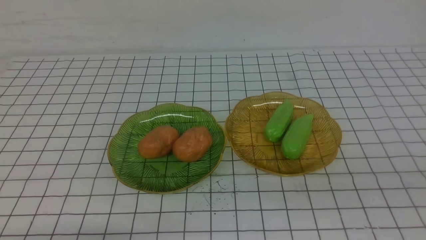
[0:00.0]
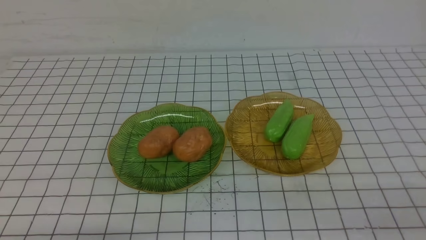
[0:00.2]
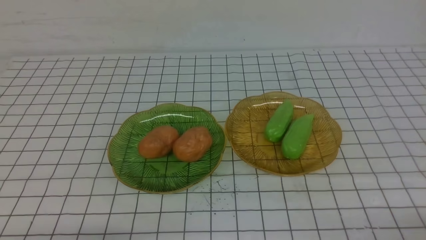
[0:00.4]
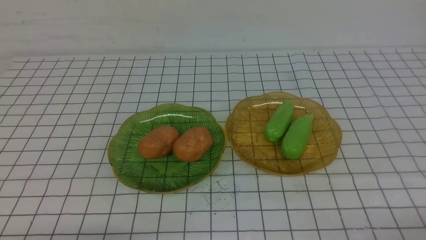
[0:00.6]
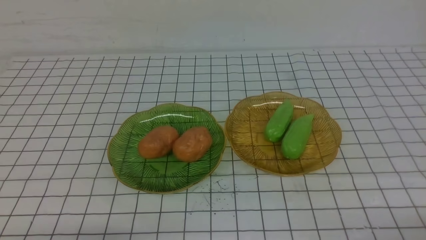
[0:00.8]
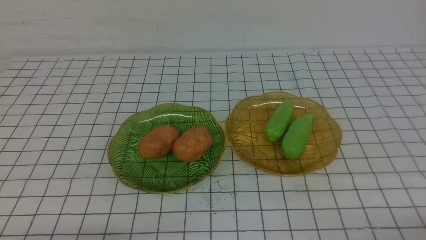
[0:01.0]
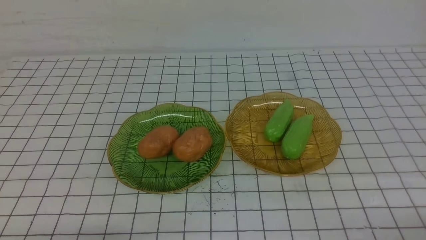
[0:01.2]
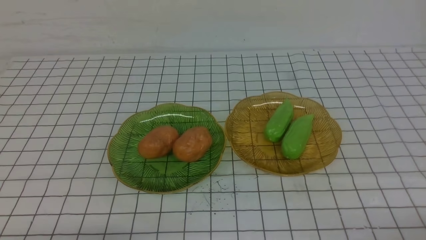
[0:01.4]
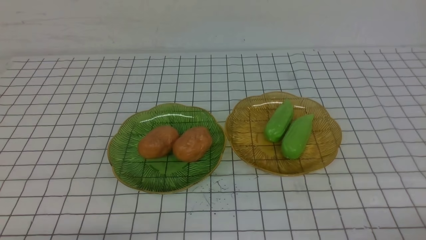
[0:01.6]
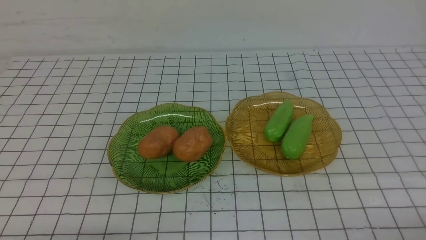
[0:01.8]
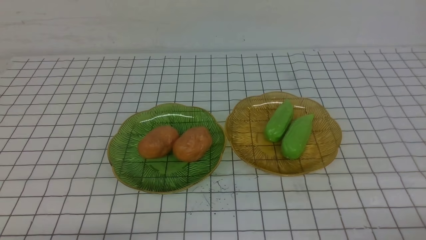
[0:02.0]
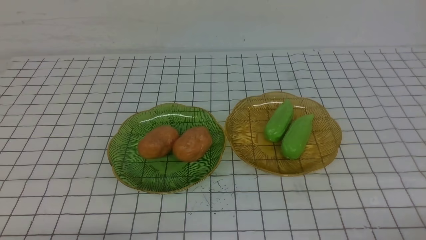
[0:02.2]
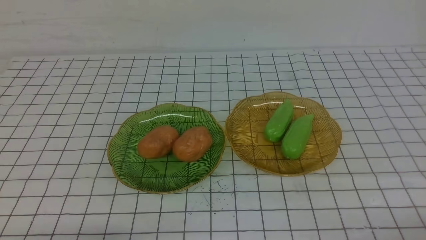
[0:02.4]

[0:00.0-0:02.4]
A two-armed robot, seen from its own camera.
0:01.2 to 0:02.4: Neither gripper changes place.

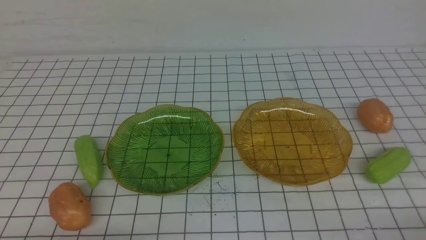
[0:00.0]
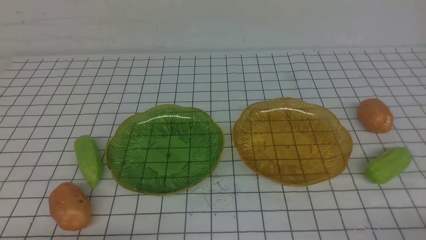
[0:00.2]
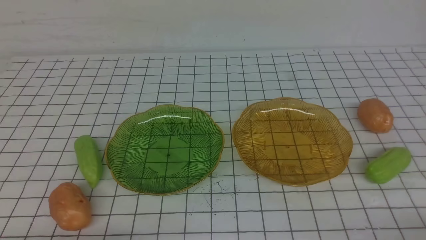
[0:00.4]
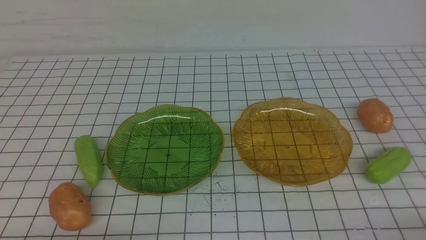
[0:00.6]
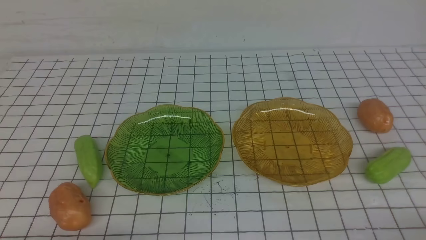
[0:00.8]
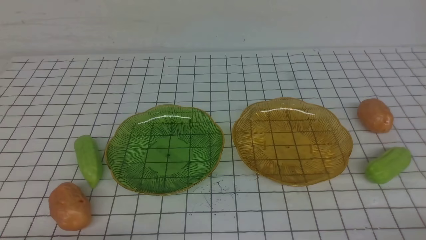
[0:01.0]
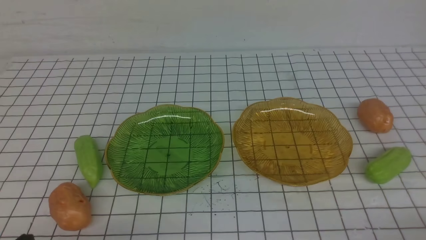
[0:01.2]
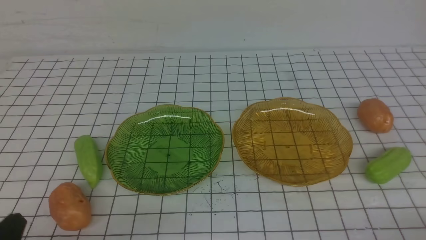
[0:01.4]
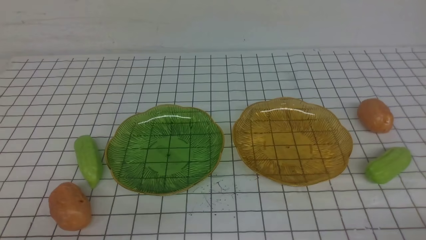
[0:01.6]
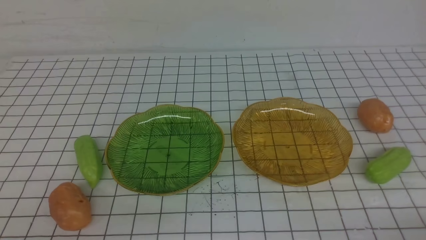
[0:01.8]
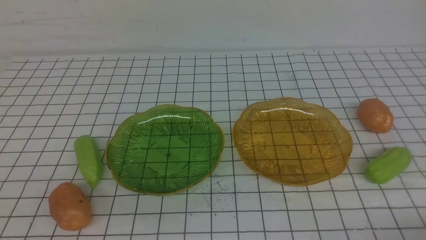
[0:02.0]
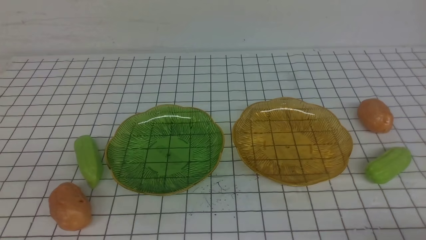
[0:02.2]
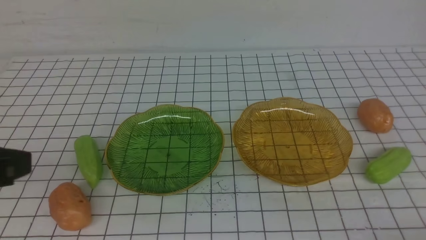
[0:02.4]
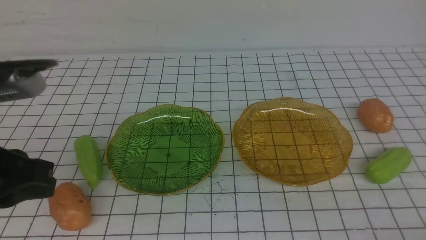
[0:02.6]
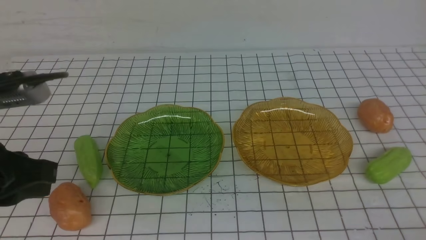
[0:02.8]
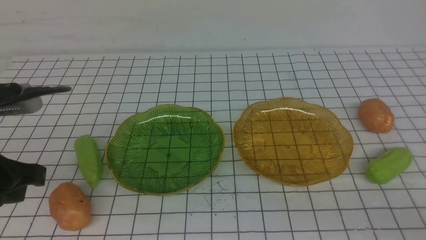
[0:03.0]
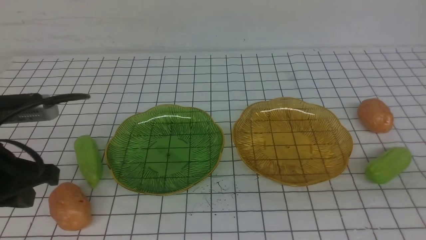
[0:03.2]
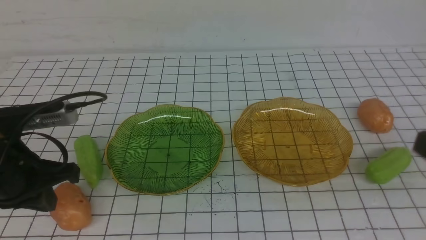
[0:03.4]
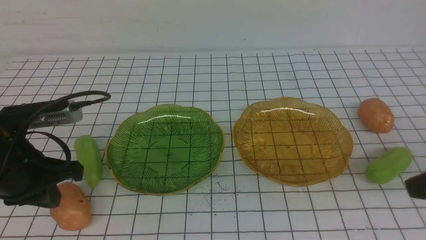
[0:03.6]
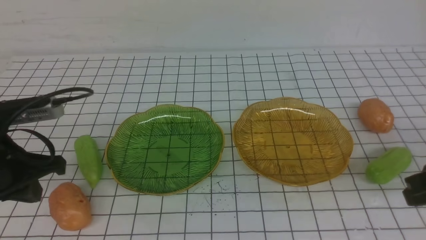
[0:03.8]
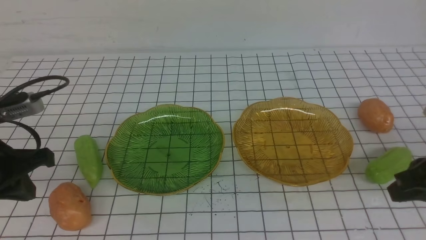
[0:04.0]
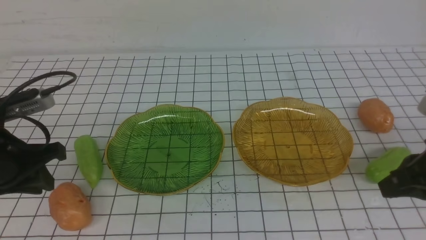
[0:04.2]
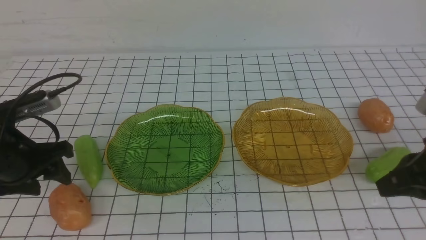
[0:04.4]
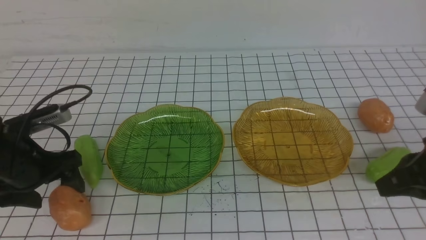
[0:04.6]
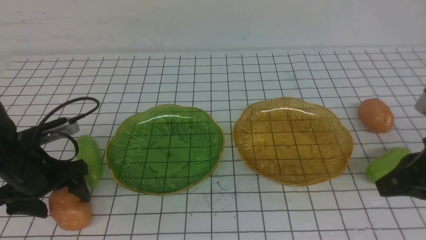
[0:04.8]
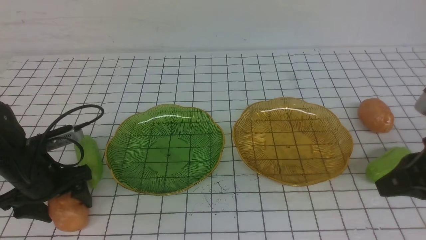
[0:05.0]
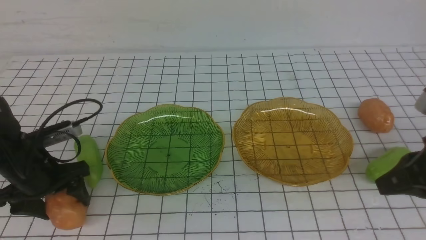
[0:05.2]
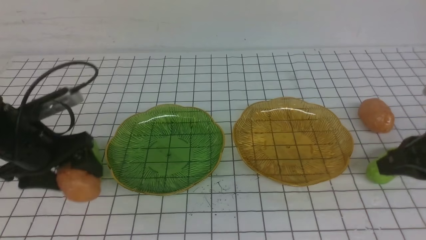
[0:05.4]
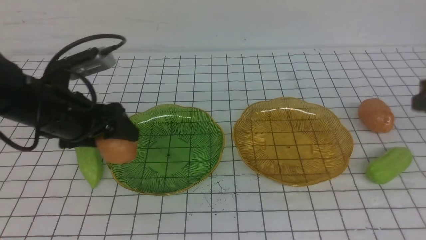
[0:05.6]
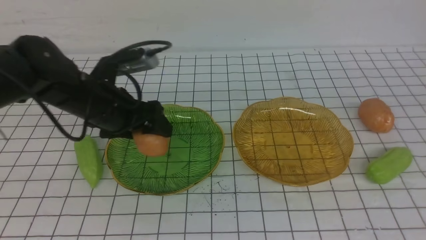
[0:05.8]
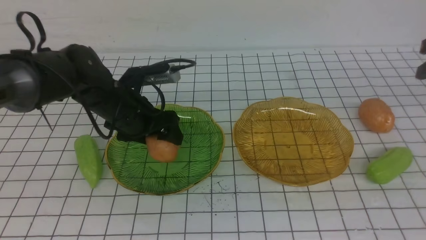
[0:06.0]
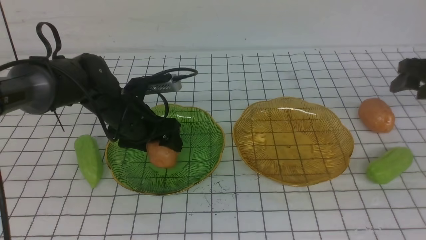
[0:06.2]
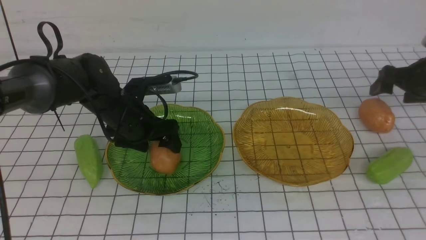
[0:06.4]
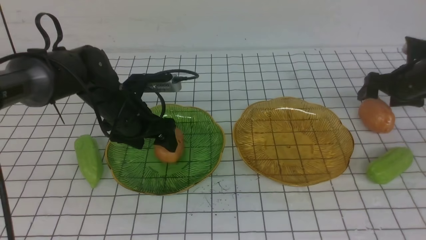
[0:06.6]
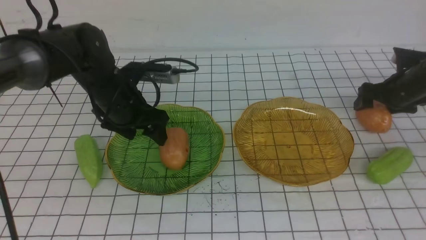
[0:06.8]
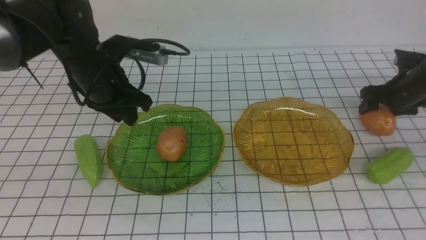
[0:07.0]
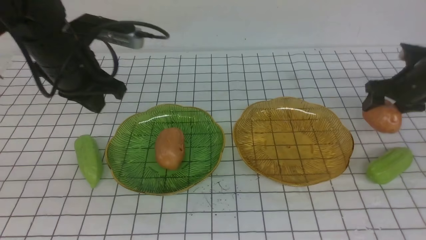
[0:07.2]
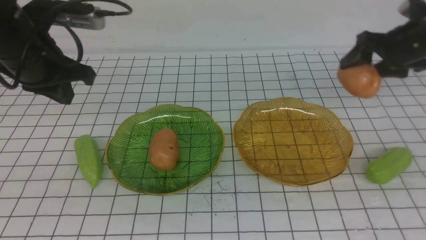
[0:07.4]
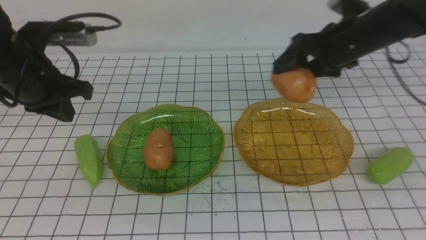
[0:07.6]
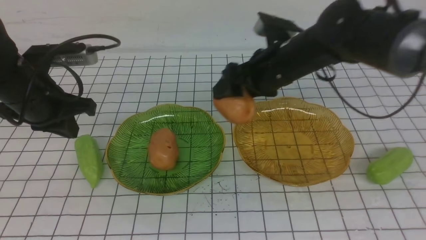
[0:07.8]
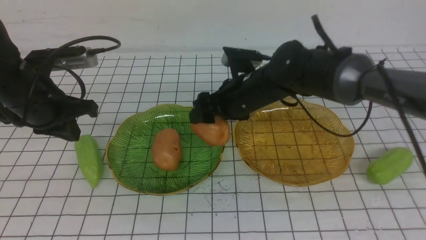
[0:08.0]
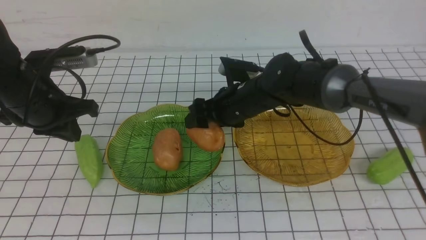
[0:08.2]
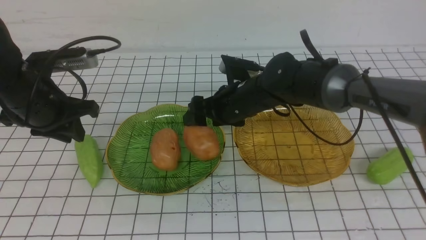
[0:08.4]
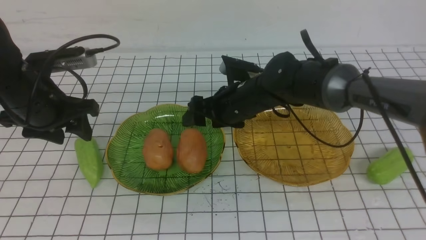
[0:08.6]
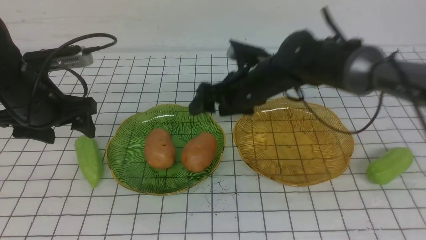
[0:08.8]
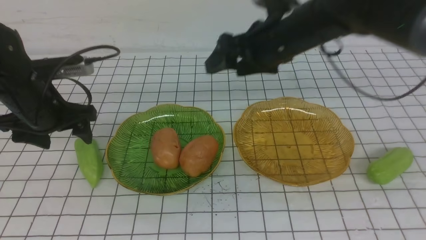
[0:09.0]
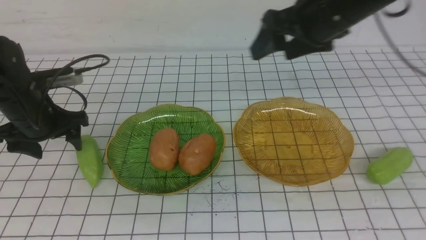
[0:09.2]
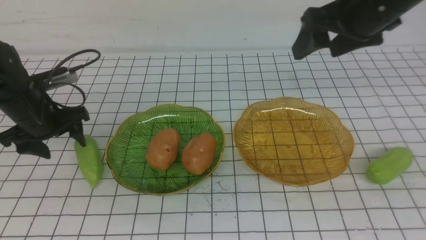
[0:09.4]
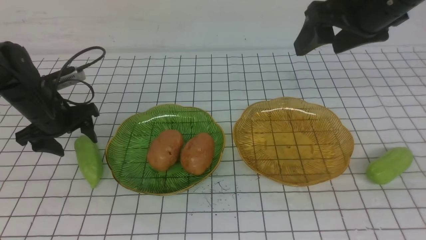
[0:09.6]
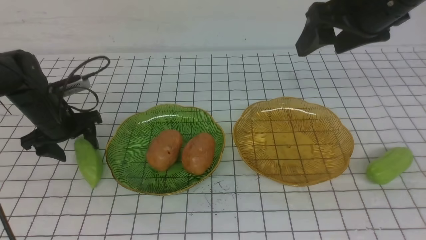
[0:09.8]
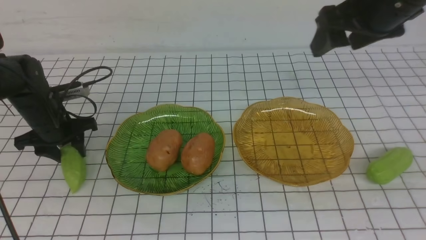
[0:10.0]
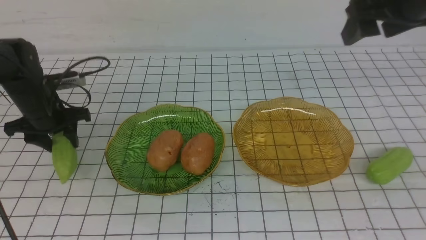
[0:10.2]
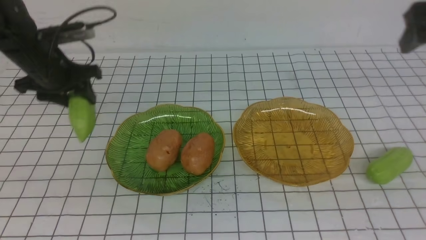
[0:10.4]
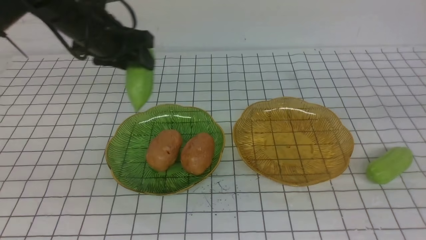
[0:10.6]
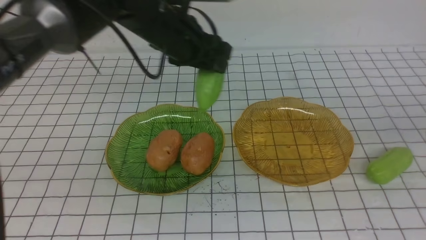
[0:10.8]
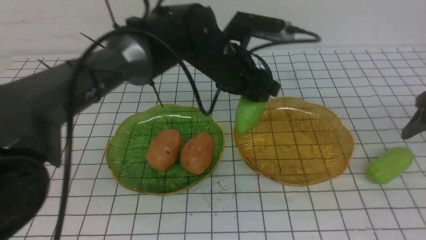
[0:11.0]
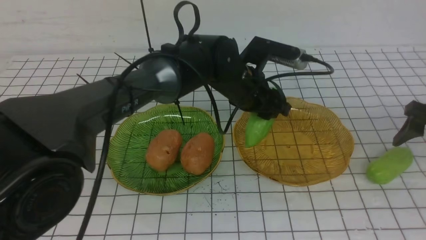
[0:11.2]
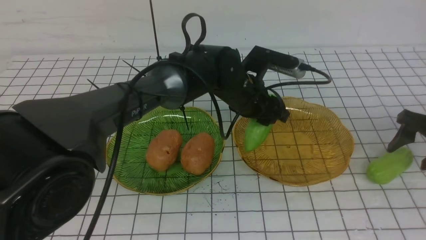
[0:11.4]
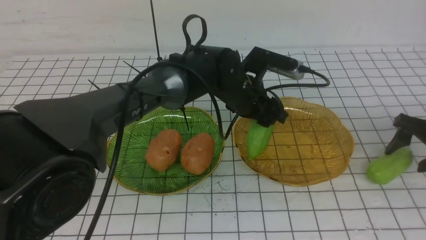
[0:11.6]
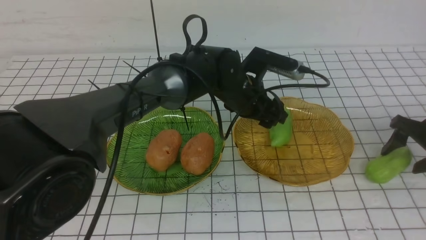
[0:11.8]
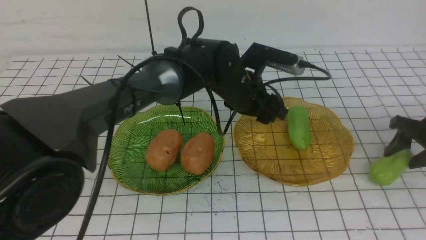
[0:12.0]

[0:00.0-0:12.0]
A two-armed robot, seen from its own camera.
Step, 0:00.0 to 0:06.8: Grab a potato with your left arm and put it on the left plate.
Step, 0:07.0 to 0:08.6: Grab a potato with your right arm and put it on the left plate.
Step, 0:08.8 to 0:11.8: use the left arm to grab a chayote and put it into the left plate.
0:01.6 to 0:03.0: The left gripper is displaced forward and upward by about 15 cm.
0:03.0 to 0:04.4: The right gripper goes about 15 cm forward. Meanwhile the left gripper is displaced forward and downward by about 10 cm, and opens its fingers.
0:04.4 to 0:06.0: The left gripper is displaced to the right and forward by roughly 15 cm. Meanwhile the right gripper heads forward and to the right, covering roughly 15 cm, and opens up.
0:06.0 to 0:07.6: The left gripper is displaced to the left and upward by roughly 15 cm, and closes; the right gripper heads to the left, covering roughly 20 cm, and opens.
0:07.6 to 0:09.0: The right gripper goes about 5 cm to the left; the left gripper goes some 5 cm downward, and opens its fingers.
0:09.0 to 0:10.4: The left gripper travels forward by about 10 cm, goes downward and returns, roughly 5 cm each way, and closes up; the right gripper shifts approximately 20 cm to the right.
0:10.4 to 0:12.0: The right gripper heads downward, covering some 20 cm. The left gripper travels to the right by about 25 cm.

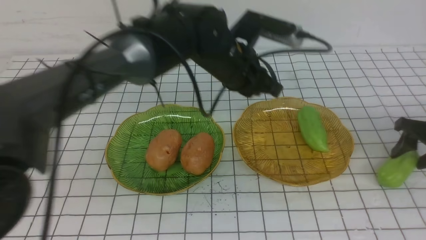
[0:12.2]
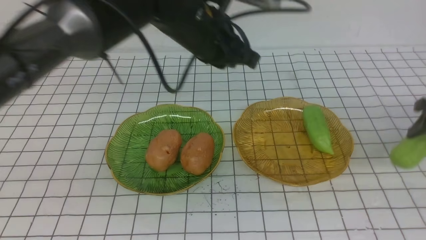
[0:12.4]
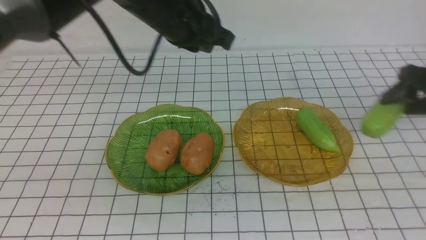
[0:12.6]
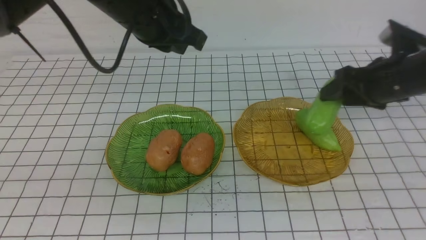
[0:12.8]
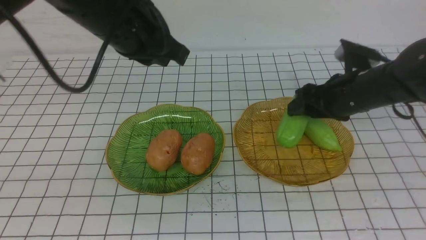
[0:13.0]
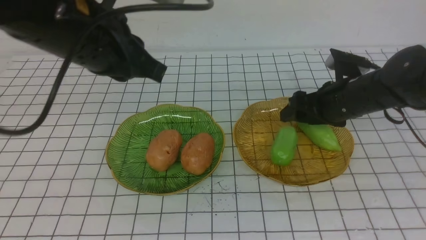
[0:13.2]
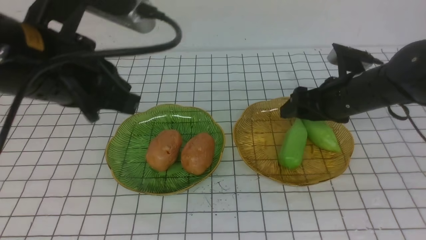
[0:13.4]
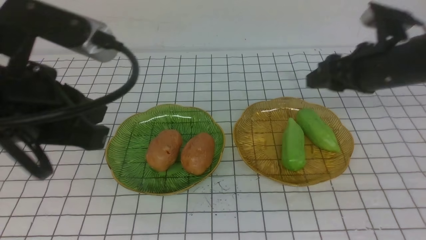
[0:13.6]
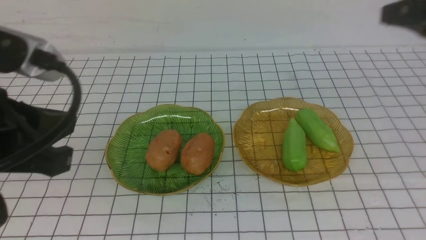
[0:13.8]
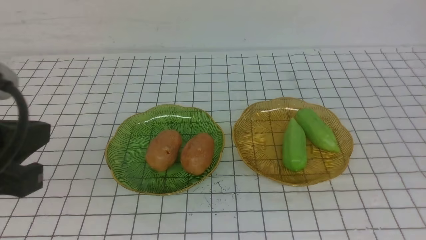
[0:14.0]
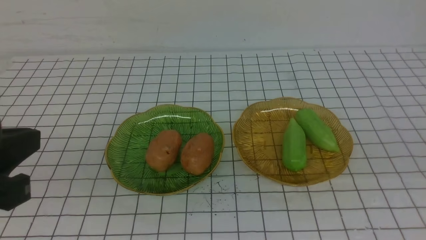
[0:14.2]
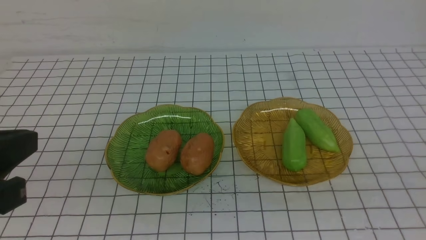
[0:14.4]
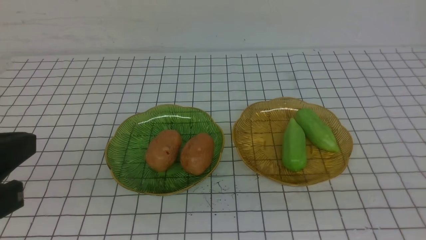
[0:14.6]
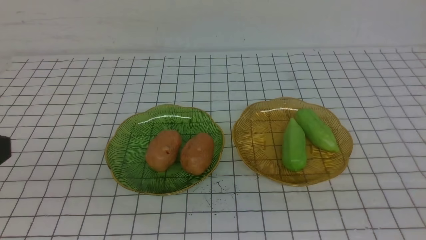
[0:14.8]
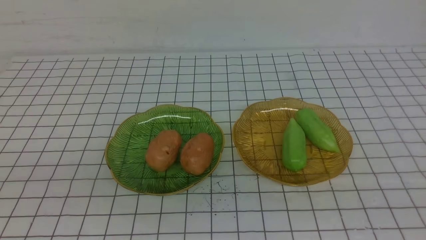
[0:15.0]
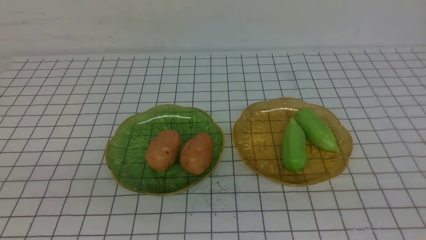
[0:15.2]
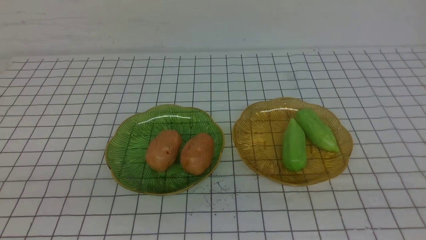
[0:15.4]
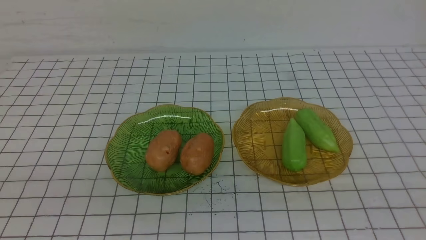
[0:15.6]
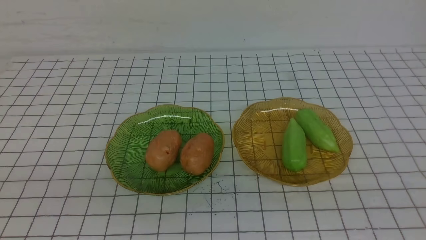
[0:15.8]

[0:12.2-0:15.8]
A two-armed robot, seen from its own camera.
Step, 0:12.2 to 0:13.4: use the right arm to grab a chayote and put it into the right plate.
0:12.2 to 0:14.0: The left gripper moves backward and to the left, approximately 35 cm; the right gripper heads upward and backward, covering approximately 40 cm, and closes up.
0:14.0 to 0:15.8: The right gripper shifts roughly 15 cm backward and downward; the left gripper travels backward by roughly 10 cm.
